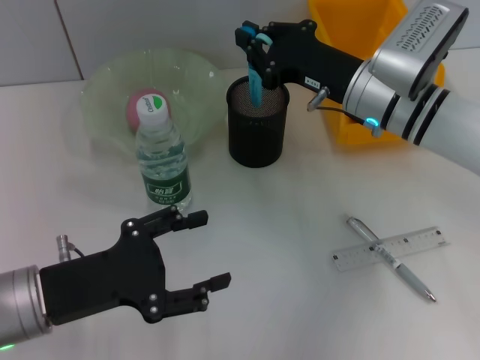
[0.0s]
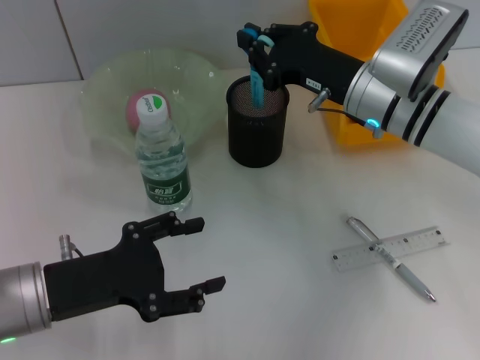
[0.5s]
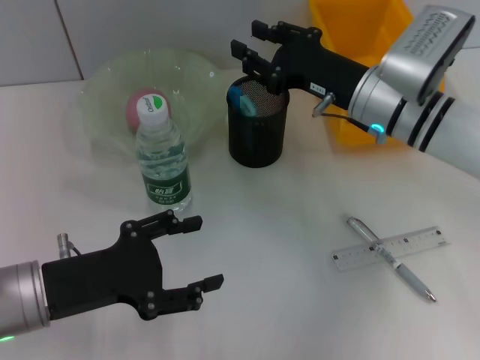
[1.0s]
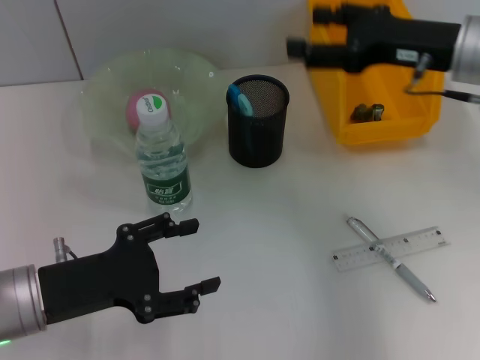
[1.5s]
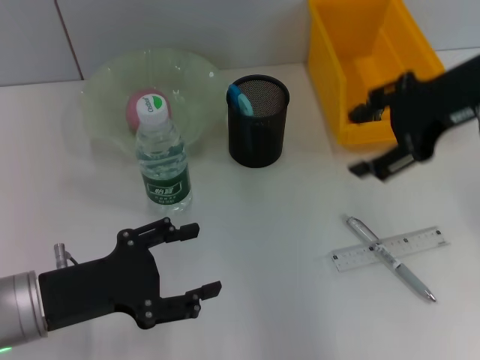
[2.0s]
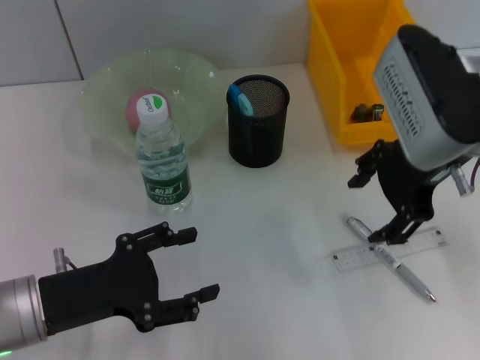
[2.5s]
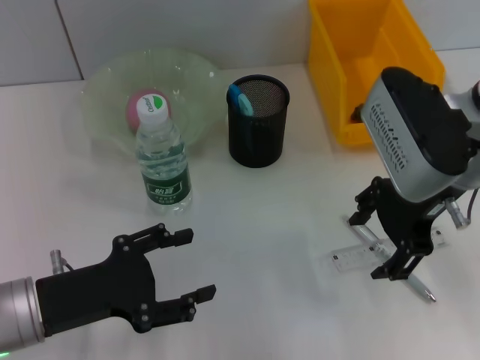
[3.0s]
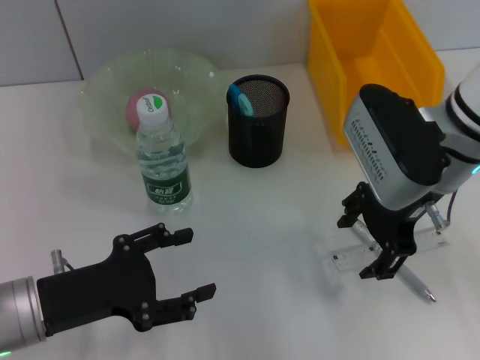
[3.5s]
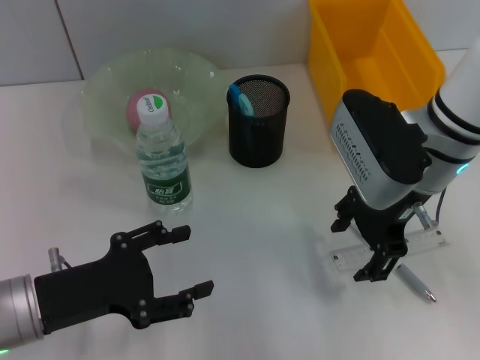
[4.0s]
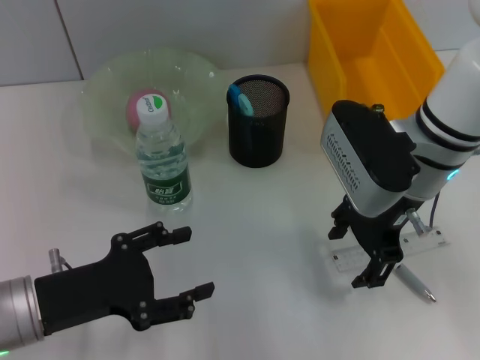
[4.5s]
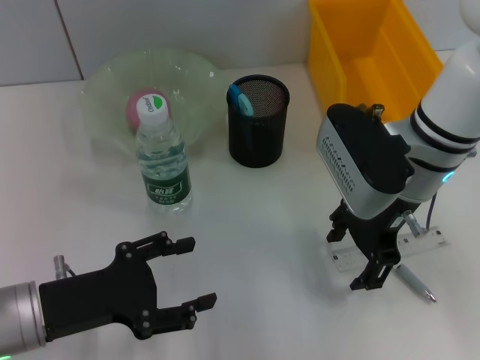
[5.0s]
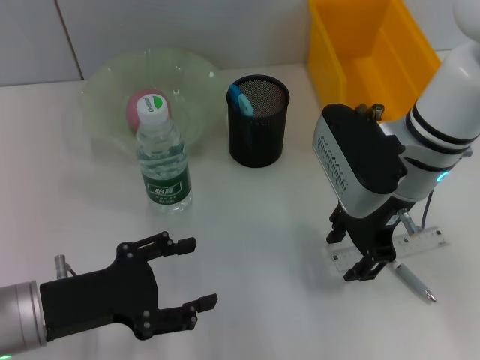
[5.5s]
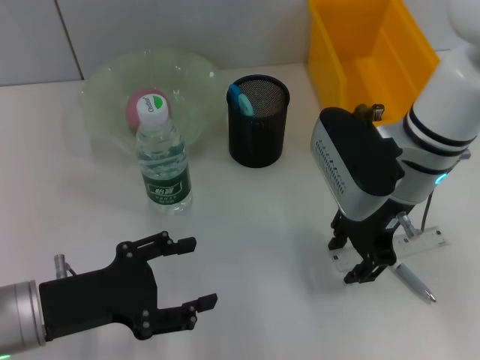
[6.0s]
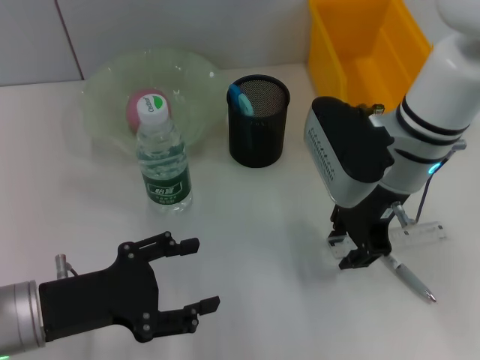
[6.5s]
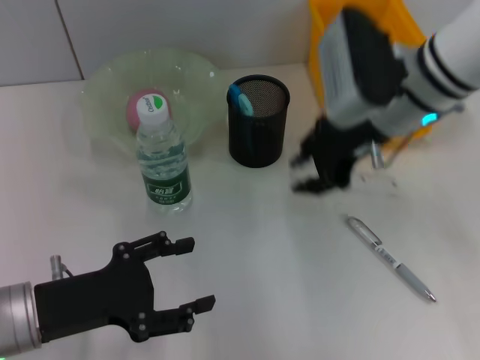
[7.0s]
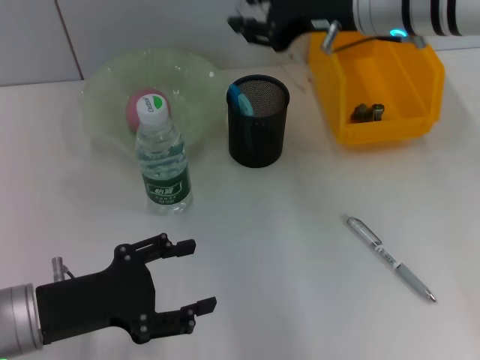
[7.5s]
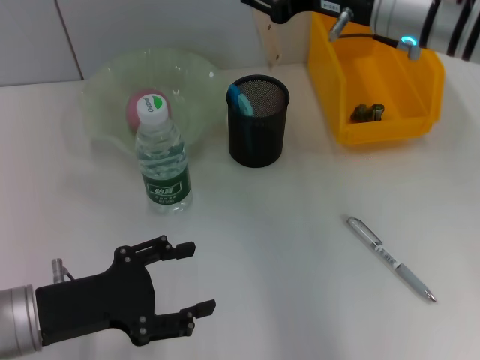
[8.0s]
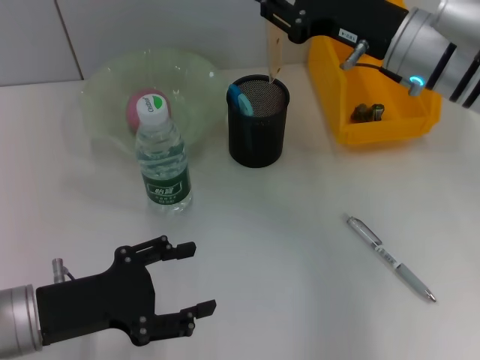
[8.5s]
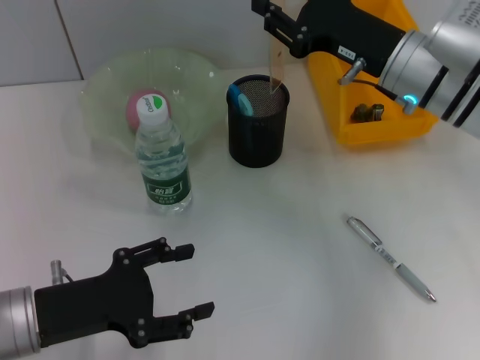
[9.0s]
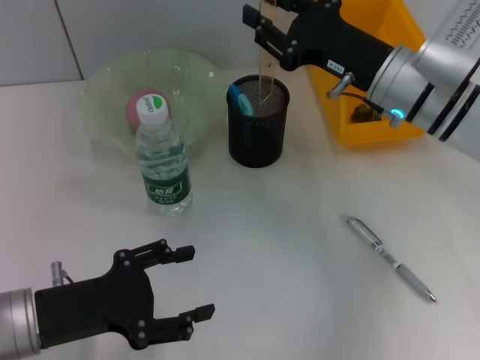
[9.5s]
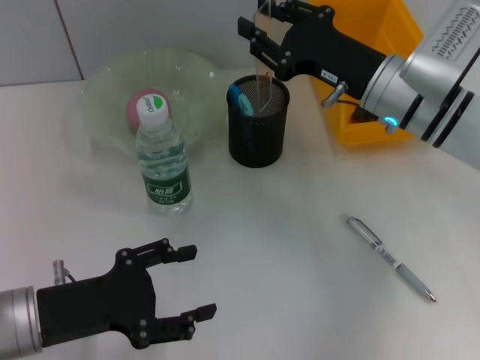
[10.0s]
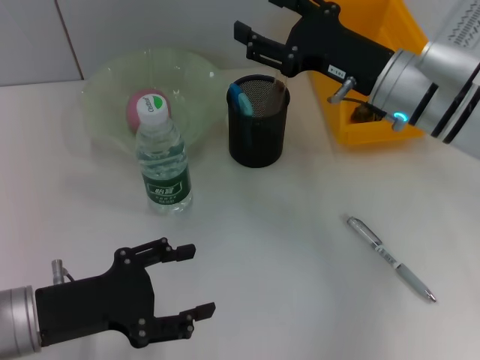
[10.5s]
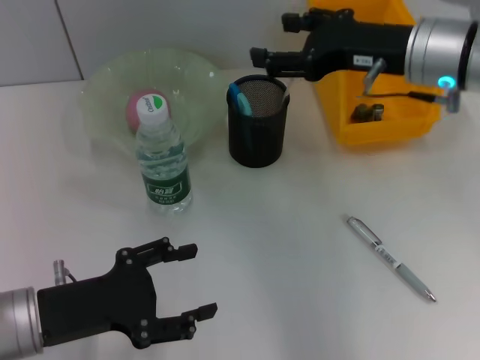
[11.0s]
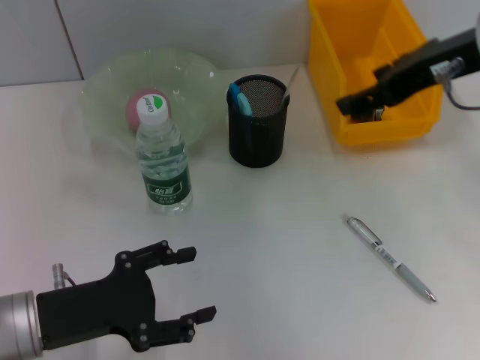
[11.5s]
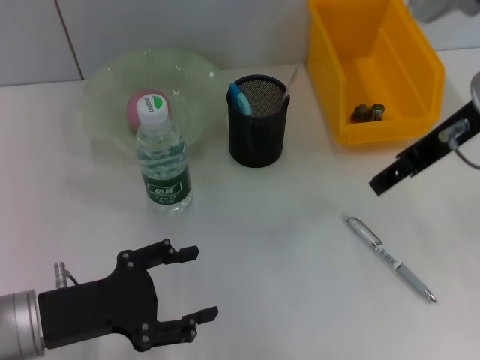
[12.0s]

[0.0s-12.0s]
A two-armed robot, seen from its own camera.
Step, 2.0s to 6.0s: Grab the ruler with the right hand.
Step, 6.5s to 11.0s: Place the ruler into the pen holder with the right hand.
0.0s to 2.0s: The right gripper moves upward and to the right, approximately 15 cm, and opens its fingers.
2.0s to 4.0s: The right gripper moves downward and to the left, approximately 10 cm.
4.0s to 6.0s: The grippers make only small movements.
6.0s to 8.0s: The right gripper heads upward, covering about 5 cm.
8.0s to 10.0s: The right gripper travels downward by approximately 10 cm.
10.0s to 12.0s: The right gripper heads upward, covering about 10 cm, and opens.

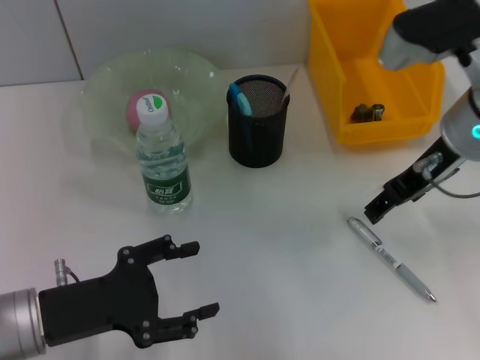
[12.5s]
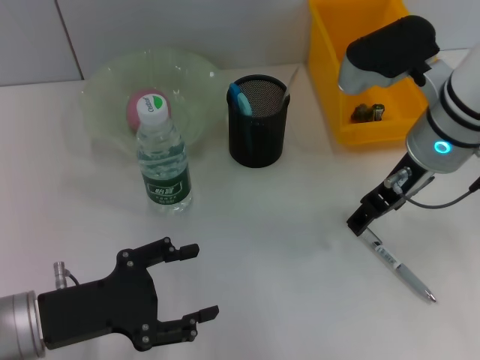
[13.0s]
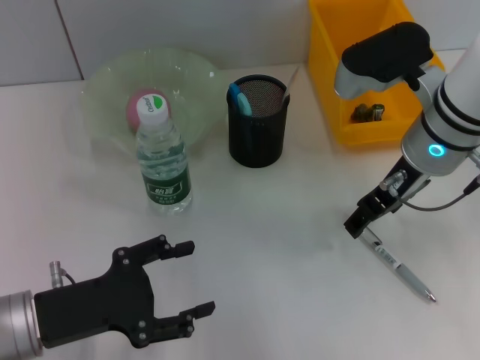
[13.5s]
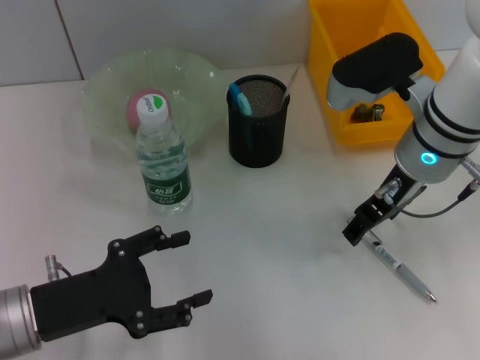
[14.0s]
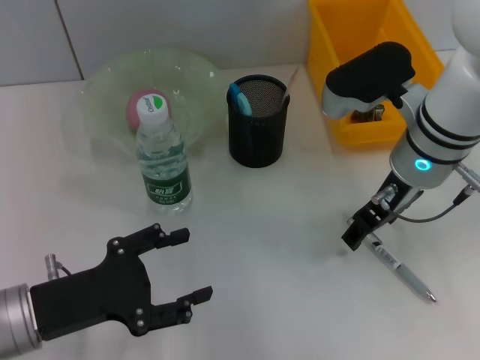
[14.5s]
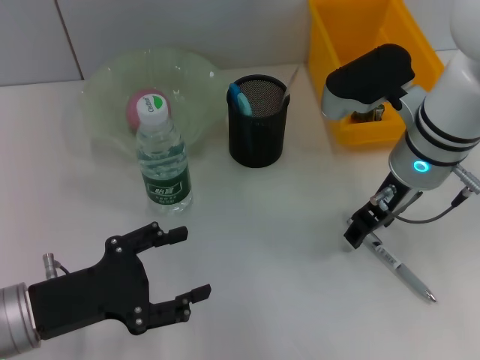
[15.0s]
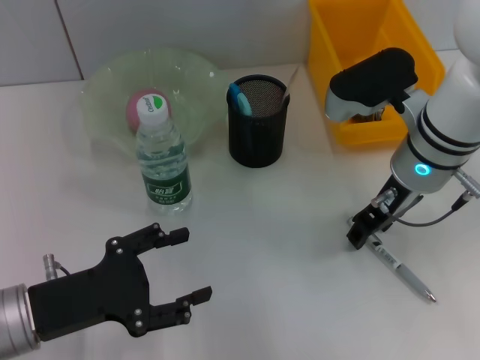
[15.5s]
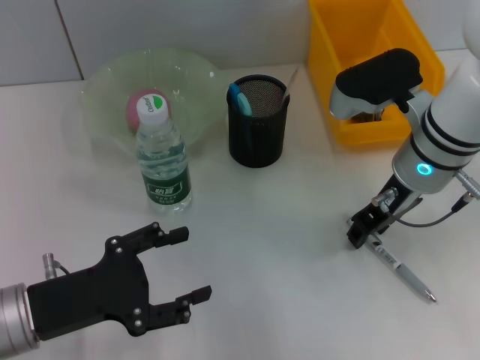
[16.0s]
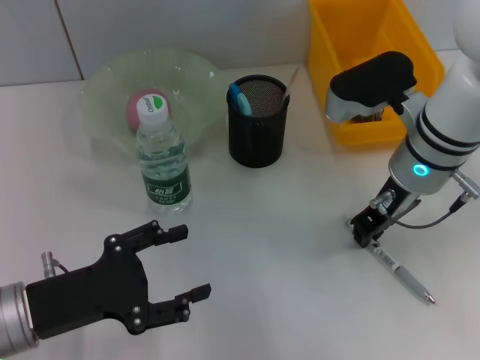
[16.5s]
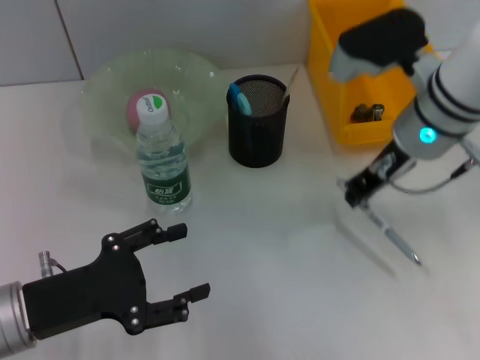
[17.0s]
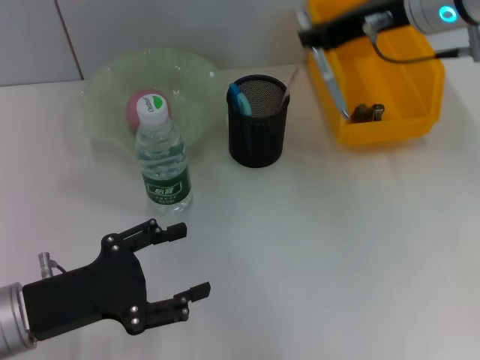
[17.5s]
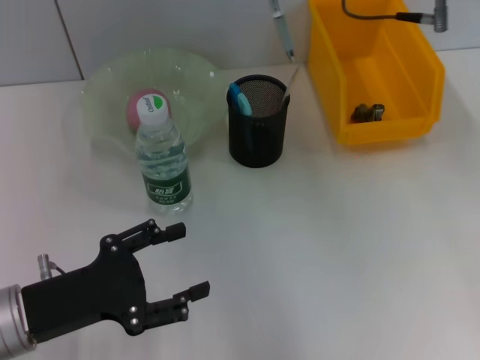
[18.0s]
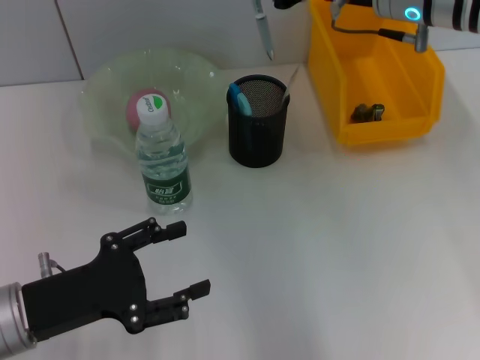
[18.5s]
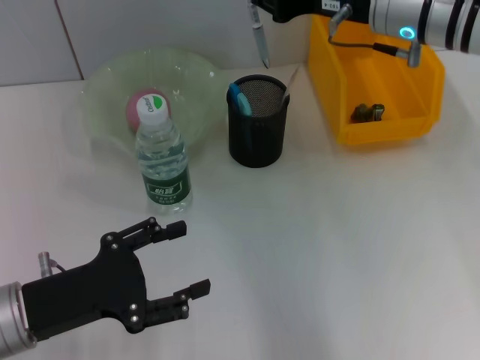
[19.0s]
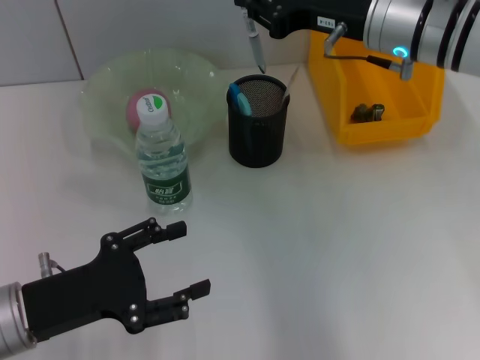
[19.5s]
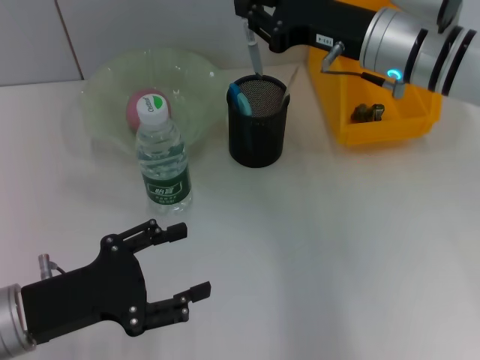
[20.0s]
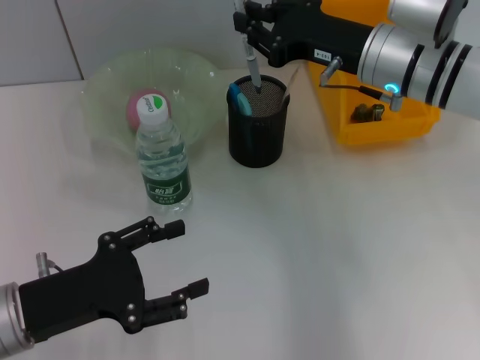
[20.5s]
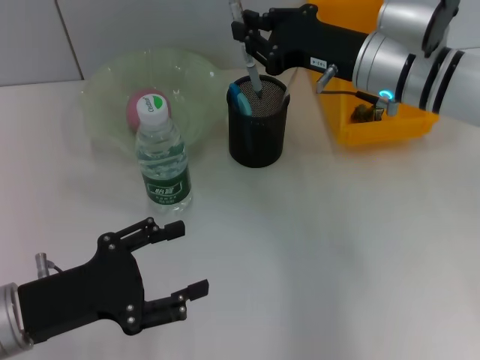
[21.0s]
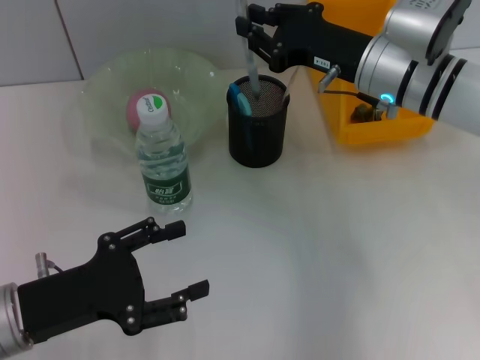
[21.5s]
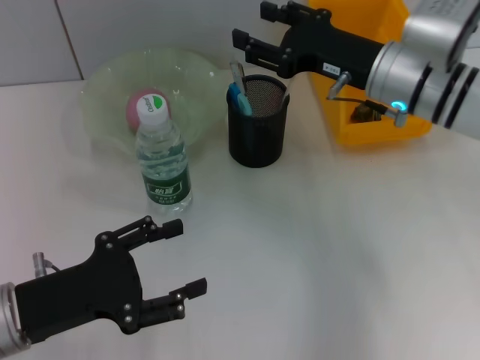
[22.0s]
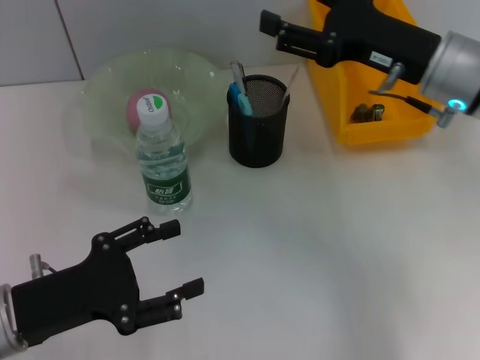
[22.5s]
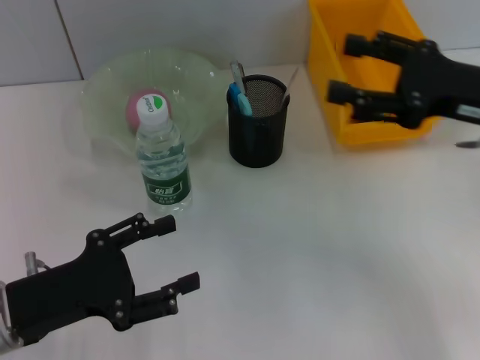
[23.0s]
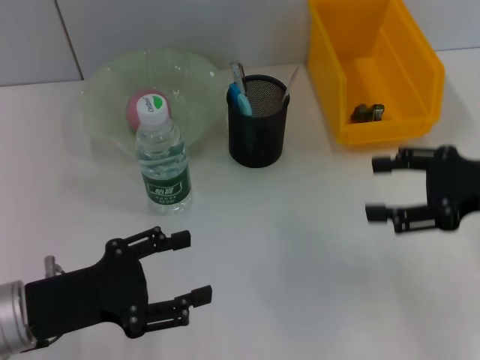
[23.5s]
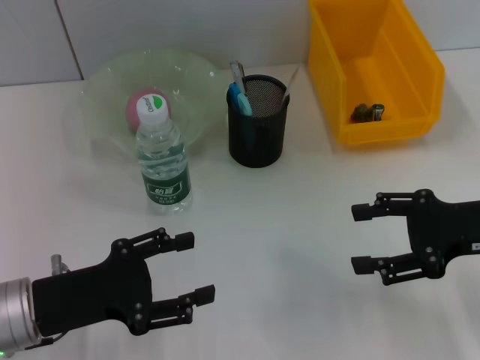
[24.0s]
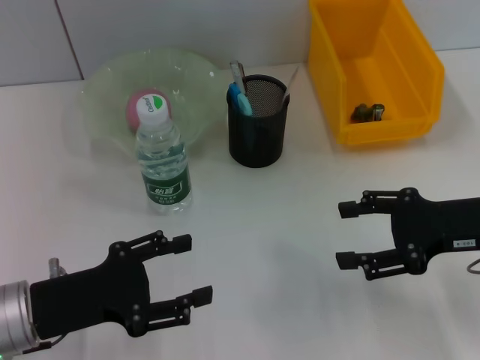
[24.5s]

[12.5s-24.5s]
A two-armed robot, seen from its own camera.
Step, 12.5s to 16.5s: Grab the gray spring-action pen with the right hand.
Step, 17.0s to 22.0s: Place the gray spring-action pen into the pen holder with the right hand.
12.5s to 14.5s: The right gripper shifts by about 5 cm.
14.5s to 16.5s: The right gripper closes its fingers.
16.5s to 18.5s: The right gripper moves upward, approximately 10 cm.
18.5s to 20.5s: The right gripper moves downward, approximately 5 cm.
20.5s to 22.5s: The right gripper shifts by some 5 cm, and opens.
22.5s to 24.5s: The right gripper moves backward, to the right and downward, about 10 cm.
